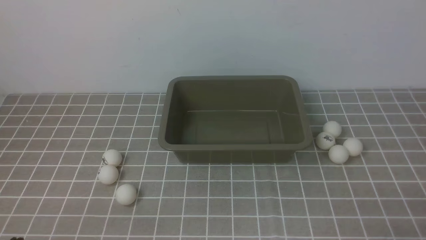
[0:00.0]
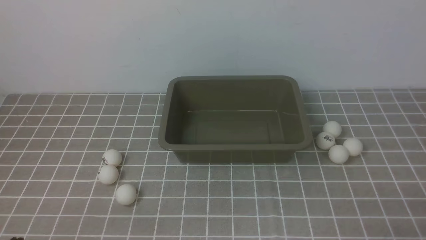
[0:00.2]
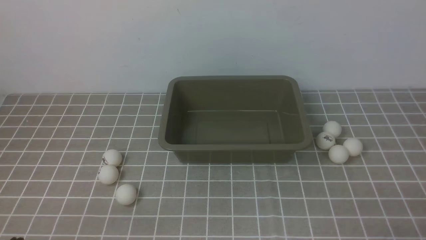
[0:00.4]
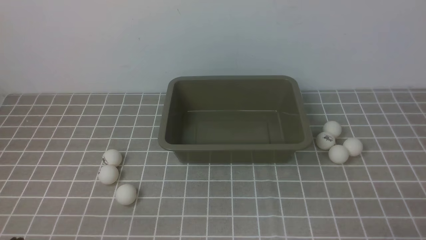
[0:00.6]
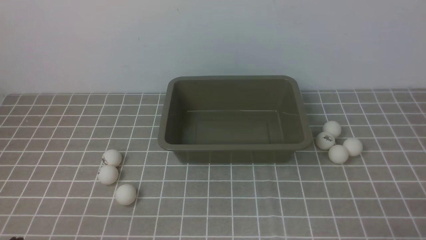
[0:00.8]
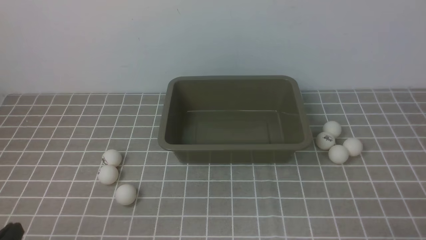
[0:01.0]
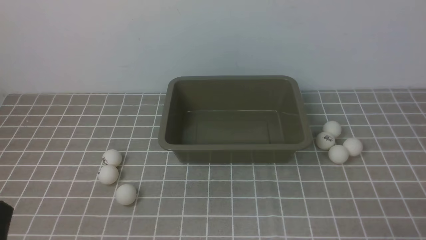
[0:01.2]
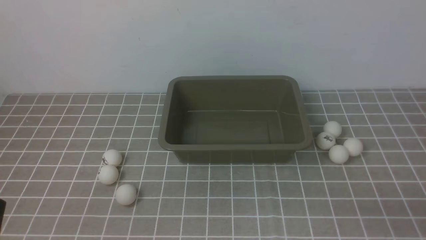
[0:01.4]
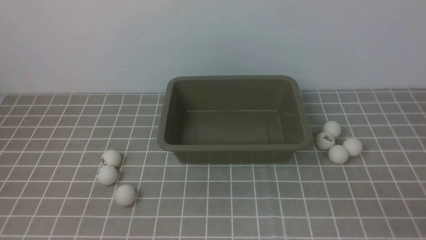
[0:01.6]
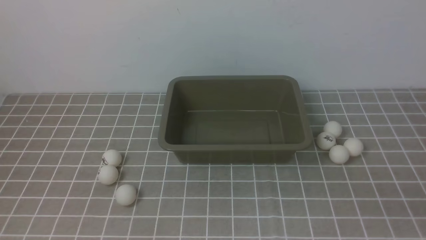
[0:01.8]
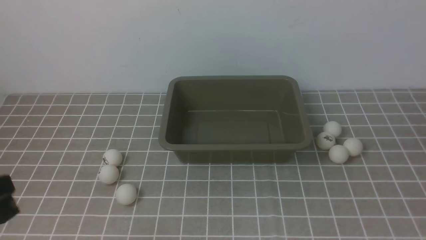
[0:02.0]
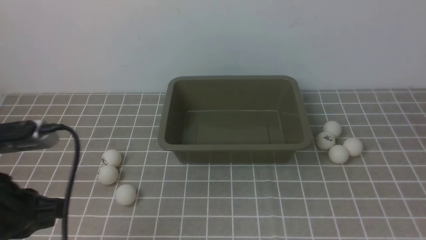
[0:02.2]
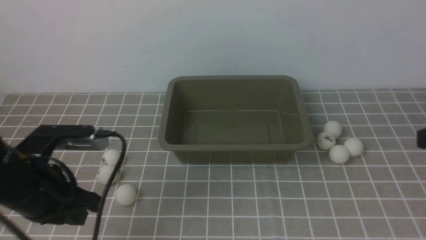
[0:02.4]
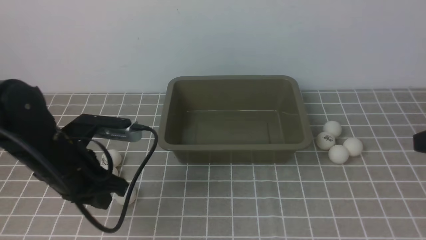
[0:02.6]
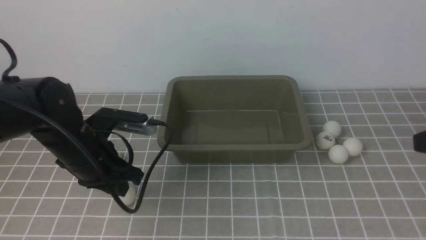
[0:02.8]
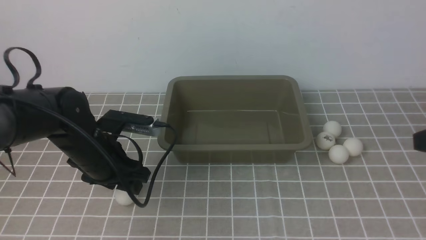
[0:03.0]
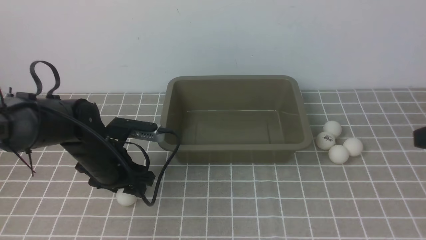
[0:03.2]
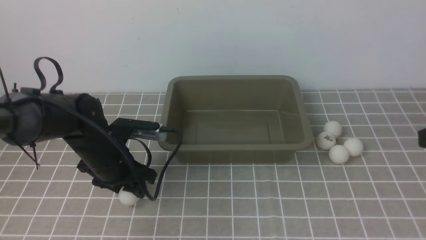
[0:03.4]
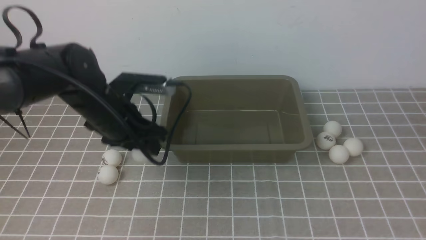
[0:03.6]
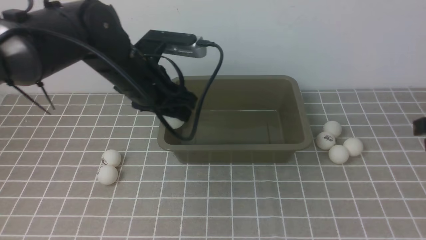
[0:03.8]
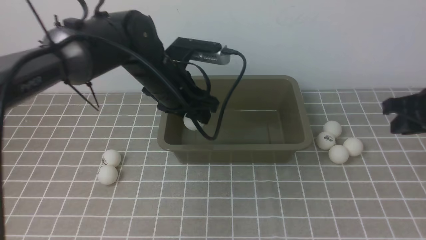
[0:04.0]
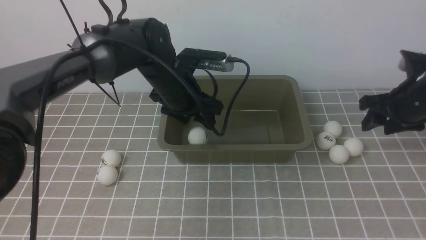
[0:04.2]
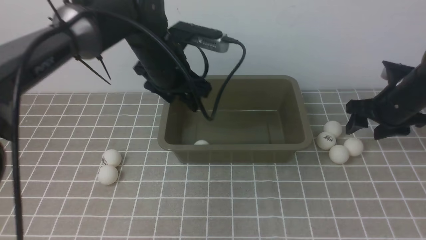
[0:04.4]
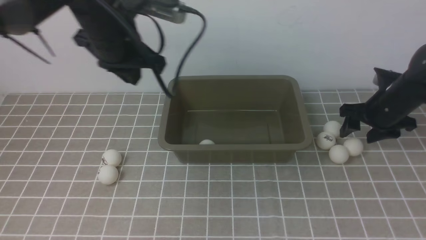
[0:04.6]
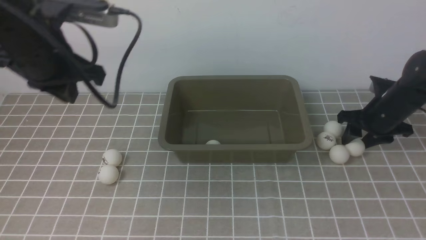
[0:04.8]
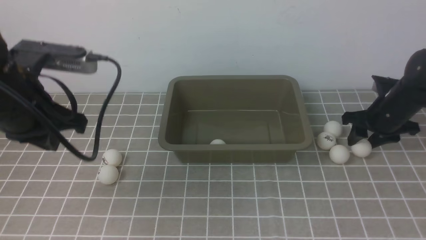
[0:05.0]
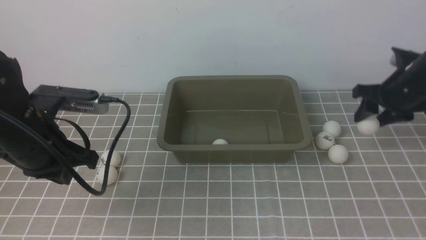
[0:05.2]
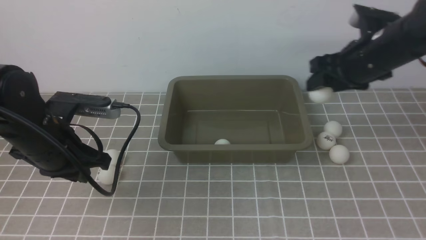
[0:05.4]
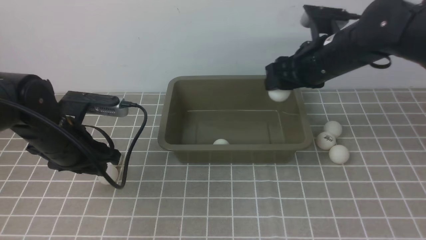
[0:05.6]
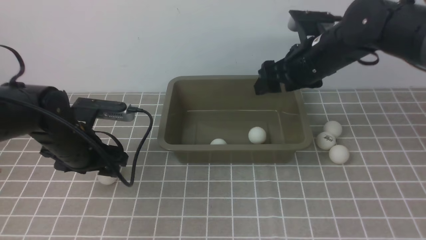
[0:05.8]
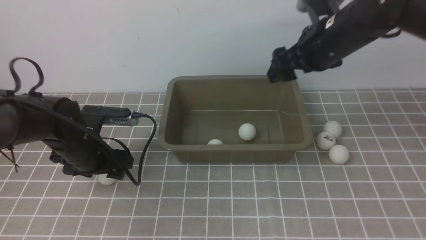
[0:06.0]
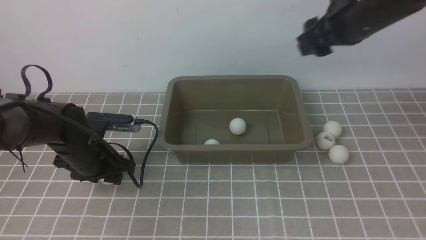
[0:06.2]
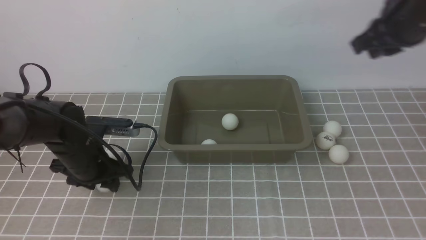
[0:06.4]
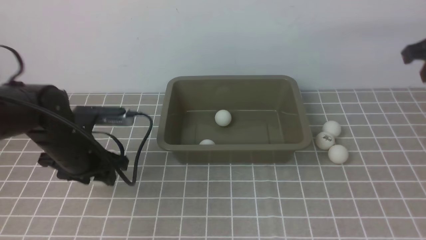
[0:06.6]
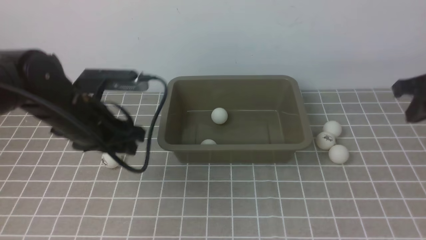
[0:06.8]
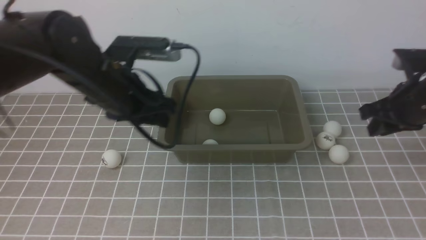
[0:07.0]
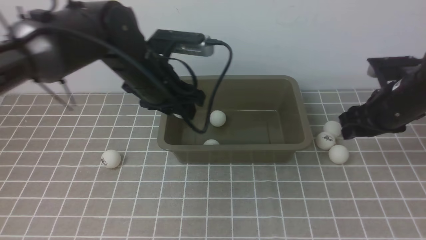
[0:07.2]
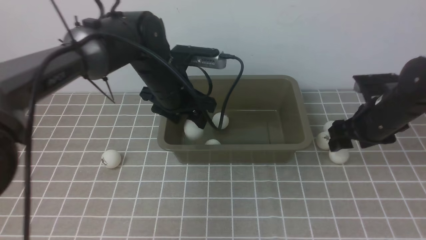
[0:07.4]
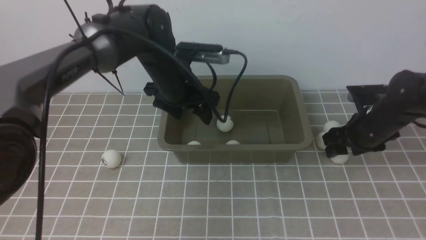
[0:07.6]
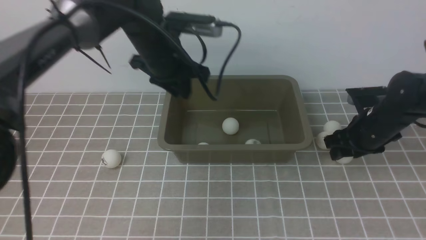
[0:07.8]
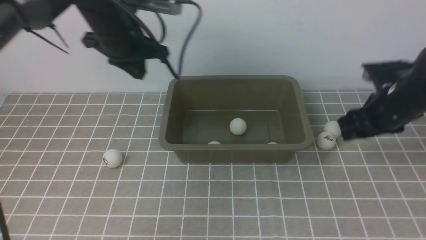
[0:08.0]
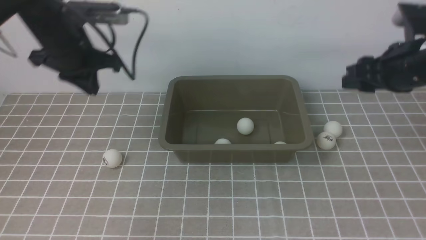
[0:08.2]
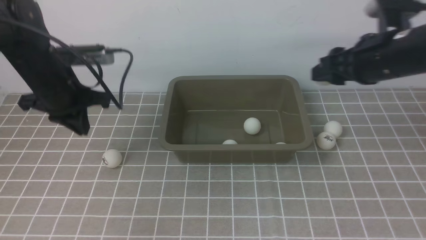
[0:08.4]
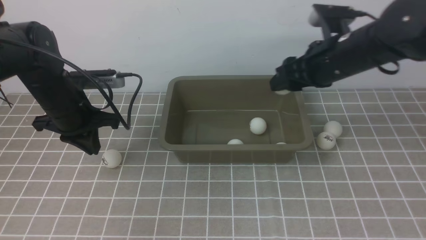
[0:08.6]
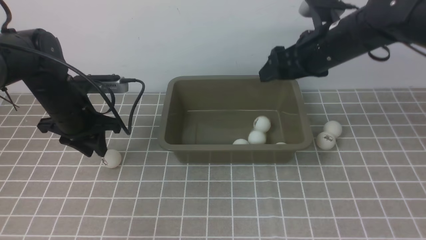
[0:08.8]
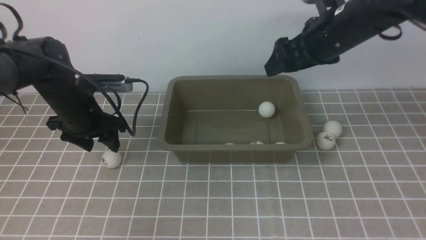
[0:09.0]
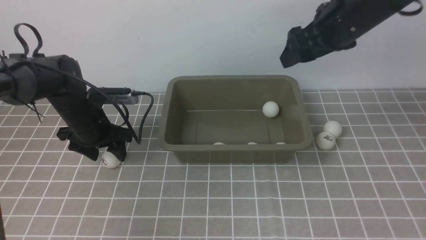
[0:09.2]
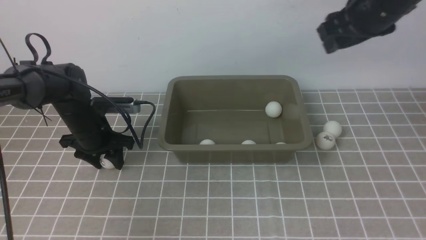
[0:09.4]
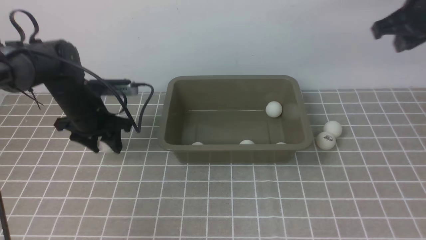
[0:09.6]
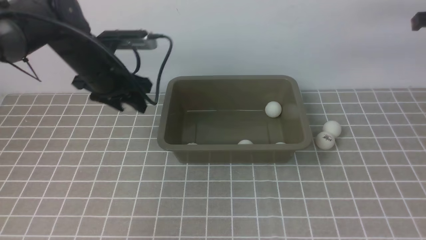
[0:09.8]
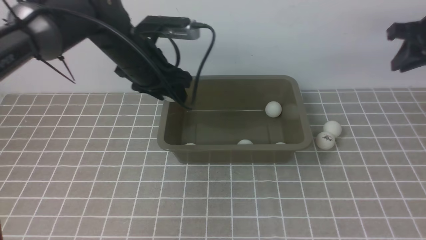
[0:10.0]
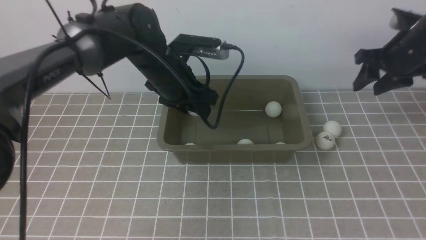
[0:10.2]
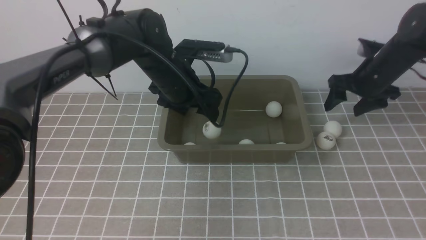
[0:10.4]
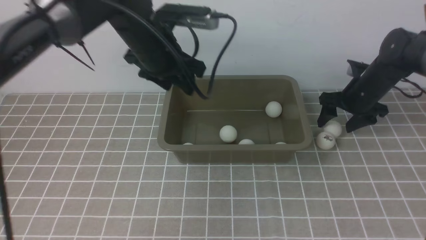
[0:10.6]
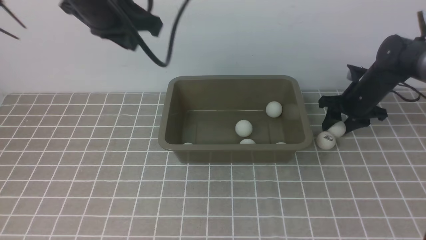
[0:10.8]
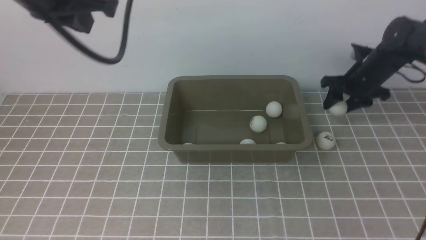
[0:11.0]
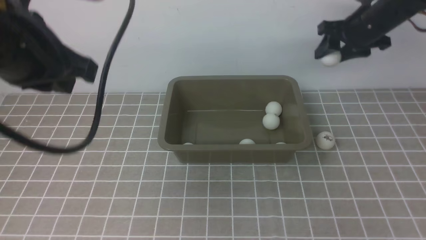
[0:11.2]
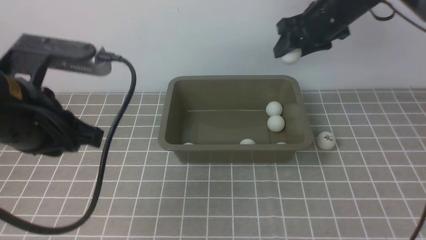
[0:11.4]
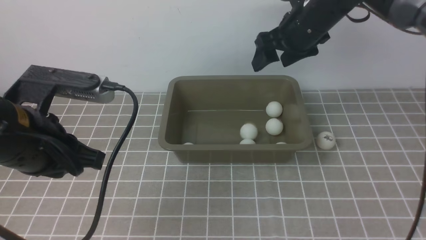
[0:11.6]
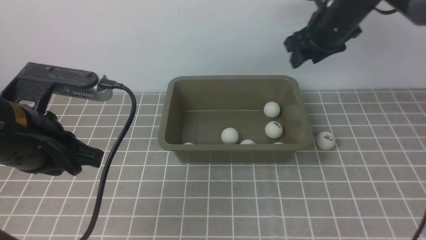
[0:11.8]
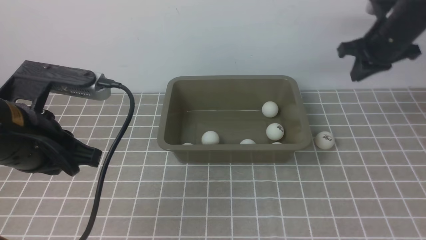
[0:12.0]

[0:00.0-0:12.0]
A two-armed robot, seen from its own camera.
Step, 0:00.0 to 0:03.4: use the left arm to clamp the table tennis ball closest to it.
Step, 0:03.8 to 0:04.2: use the left arm to put the table tennis ball into the box.
Step, 0:04.6 to 0:05.2: use the right arm to clamp the table tennis ball closest to it.
Step, 0:05.4 to 0:06.0: use the right arm to put the table tennis ball into the box.
Step, 0:06.2 to 0:06.8: use the left arm to clamp the table tennis ball closest to it.
Step, 0:07.0 to 0:07.4: use the left arm to put the table tennis ball into the box.
Step, 0:07.6 to 0:08.0: use the right arm to clamp the table tennis ball closest to it.
Step, 0:08.2 to 0:08.8: use the right arm to put the table tennis ball into the box.
Step, 0:09.0 to 0:09.6: use the left arm to clamp the table tennis ball closest to it.
Step, 0:09.8 to 0:10.4: use the left arm to put the table tennis ball into the box.
Step, 0:10.6 to 0:11.0: use the right arm to clamp the table tennis ball closest to it.
Step, 0:11.2 to 0:11.8: use the right arm to put the table tennis ball into the box.
0:01.6 to 0:03.0: The right gripper shifts some 20 cm upward and forward; the left gripper is displaced forward by roughly 25 cm, and opens up.
0:03.0 to 0:04.4: The left gripper moves forward, to the right and upward, roughly 15 cm. Meanwhile the right gripper is displaced forward and downward by roughly 25 cm, and opens its fingers.
0:04.4 to 0:06.0: The left gripper is displaced to the left, downward and backward by some 20 cm, and closes, then reopens. Meanwhile the right gripper goes about 20 cm to the left and upward.
0:06.0 to 0:07.6: The right gripper is displaced downward and to the right by some 15 cm, and closes, then opens again; the left gripper moves to the right, upward and forward, approximately 20 cm.
0:07.6 to 0:09.0: The right gripper heads upward and to the left, covering approximately 20 cm. Meanwhile the left gripper goes approximately 15 cm to the left, and closes and opens again.
0:09.0 to 0:10.4: The right gripper shifts roughly 15 cm to the right, downward and forward, and closes, then opens again. The left gripper shifts roughly 15 cm to the right.
0:10.4 to 0:12.0: The left gripper goes about 25 cm backward and to the left, and closes its fingers. The right gripper heads to the left and upward, covering approximately 10 cm, and closes.

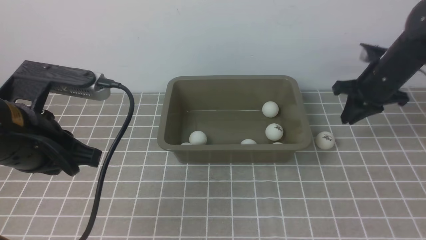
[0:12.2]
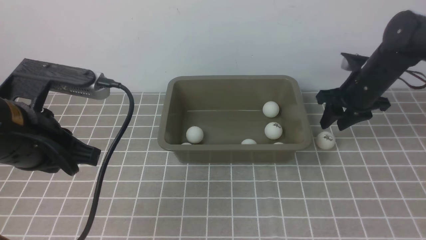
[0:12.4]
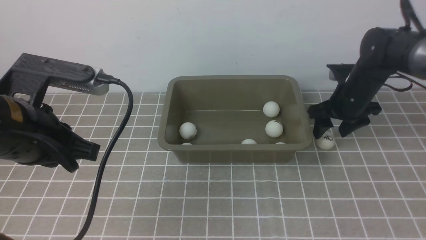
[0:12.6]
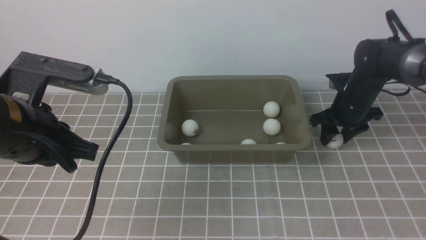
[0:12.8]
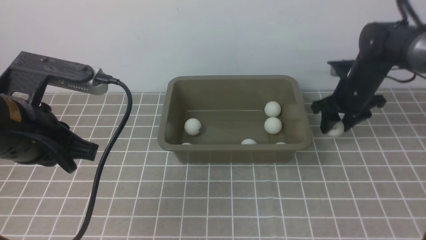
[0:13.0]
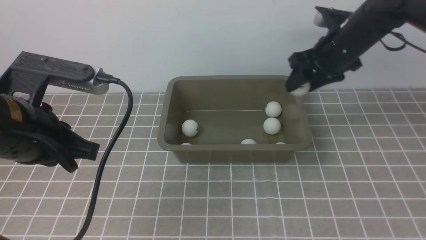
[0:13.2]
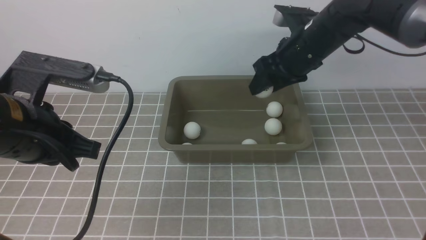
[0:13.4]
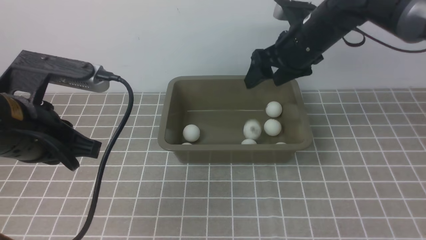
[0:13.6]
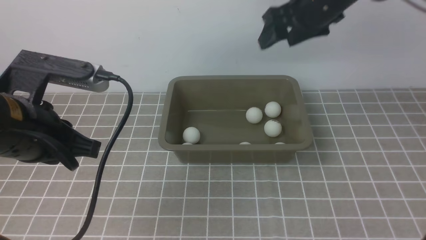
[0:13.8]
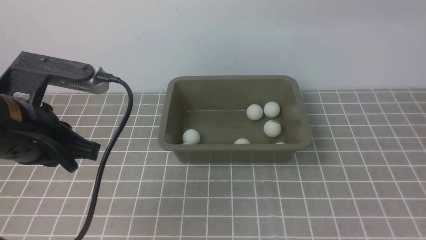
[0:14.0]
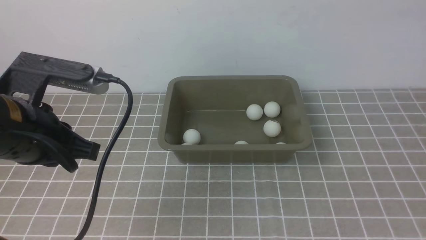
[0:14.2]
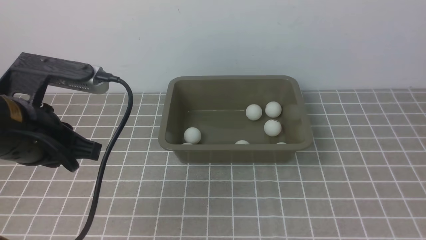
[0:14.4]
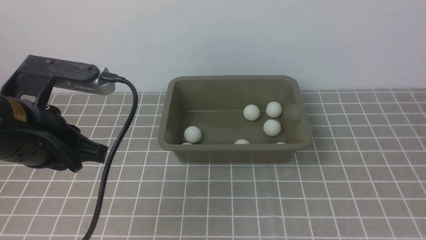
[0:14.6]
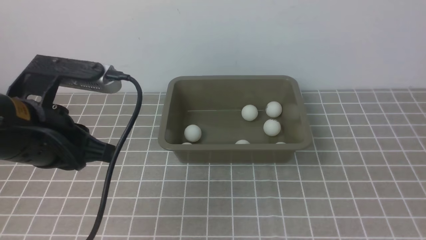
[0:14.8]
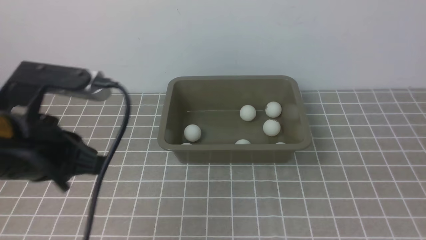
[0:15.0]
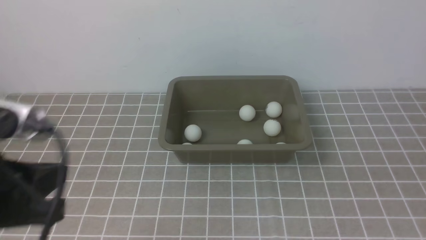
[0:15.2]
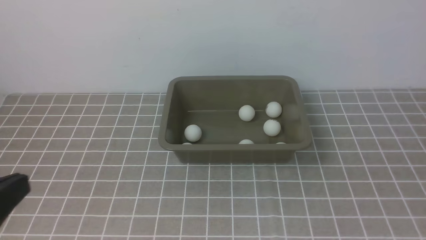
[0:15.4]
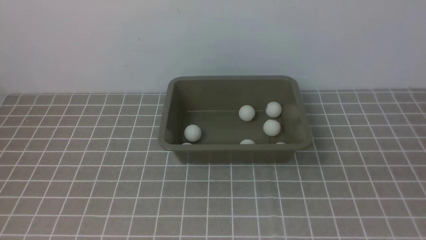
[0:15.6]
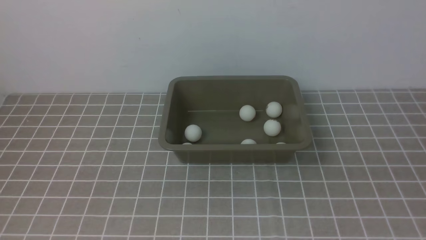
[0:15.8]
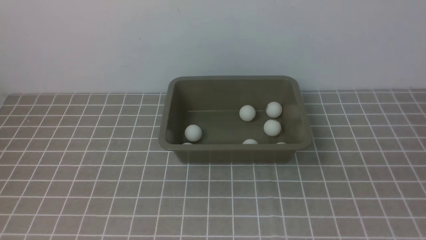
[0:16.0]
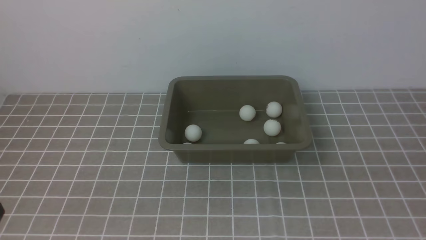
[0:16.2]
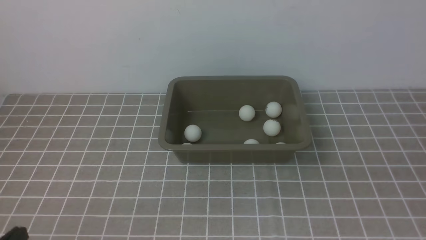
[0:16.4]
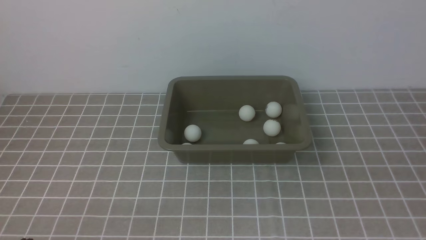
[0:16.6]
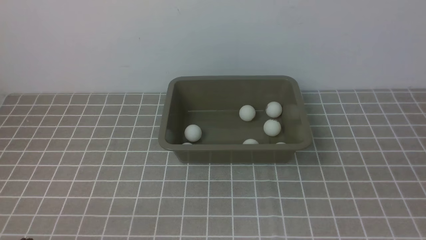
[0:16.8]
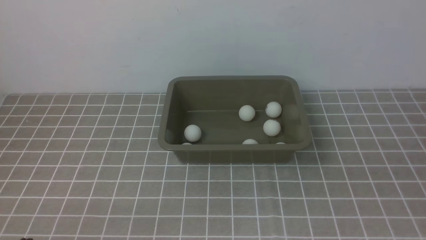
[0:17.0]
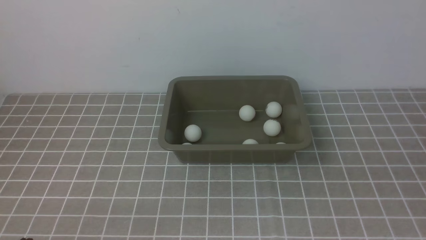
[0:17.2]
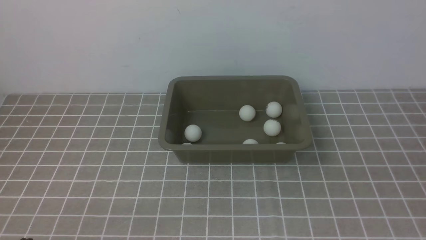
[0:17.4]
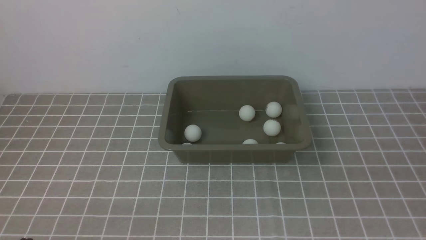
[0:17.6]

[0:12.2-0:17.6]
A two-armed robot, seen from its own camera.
Step, 0:12.2 to 0:13.0: use the right arm to clamp the table tennis ball closest to it.
Step, 0:13.2 to 0:13.6: use the right arm to put the table tennis ball into the box.
0:12.2 to 0:13.6: The right gripper travels to the left and upward by roughly 15 cm, and opens its fingers.
0:13.6 to 0:15.0: The right gripper goes some 50 cm backward and to the right, and closes up.
0:15.0 to 0:16.2: The left gripper heads backward, covering approximately 15 cm.
